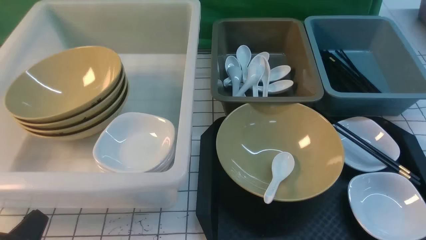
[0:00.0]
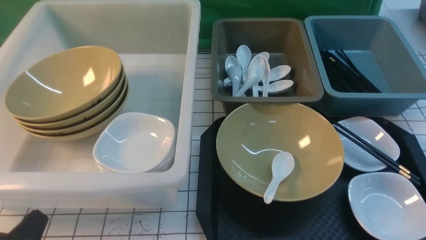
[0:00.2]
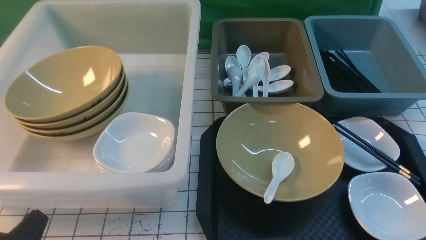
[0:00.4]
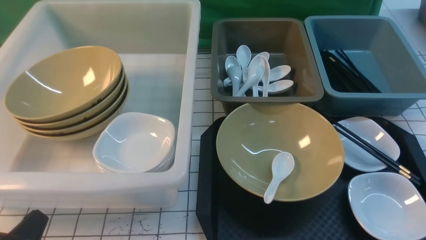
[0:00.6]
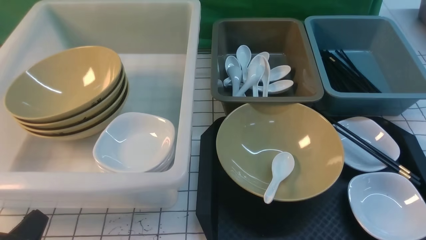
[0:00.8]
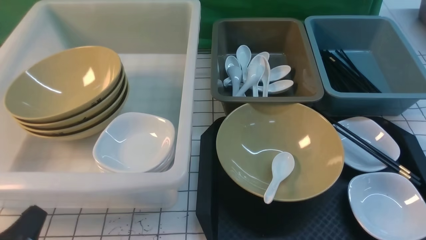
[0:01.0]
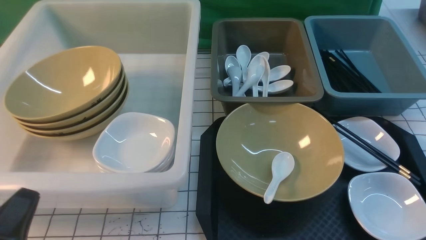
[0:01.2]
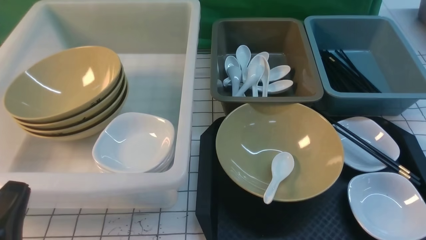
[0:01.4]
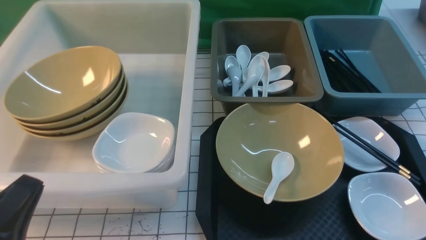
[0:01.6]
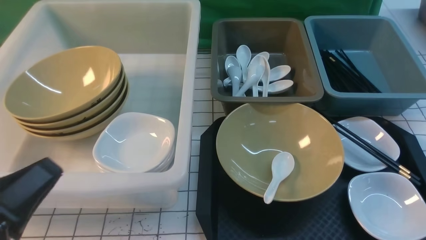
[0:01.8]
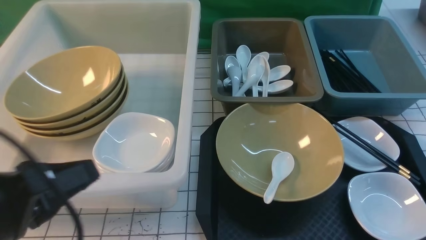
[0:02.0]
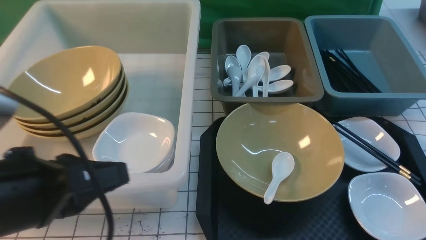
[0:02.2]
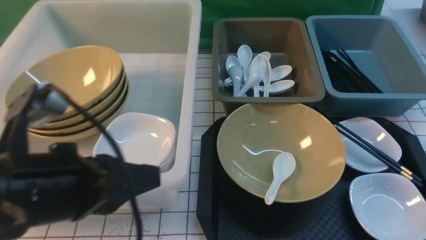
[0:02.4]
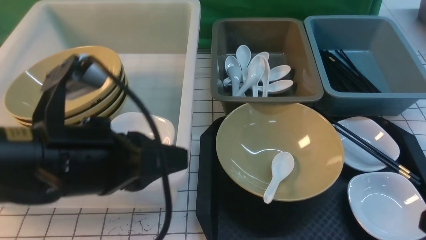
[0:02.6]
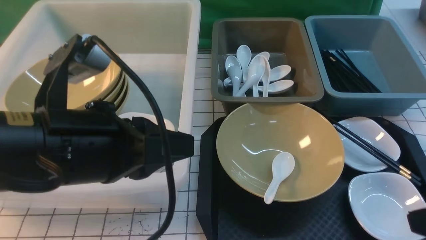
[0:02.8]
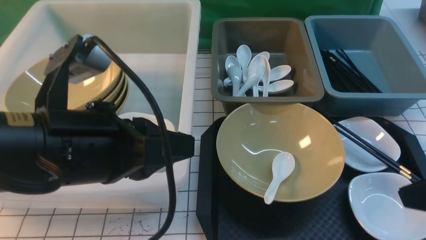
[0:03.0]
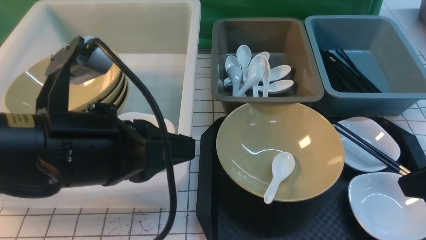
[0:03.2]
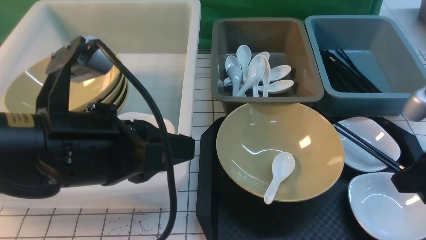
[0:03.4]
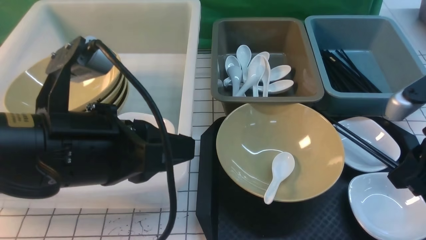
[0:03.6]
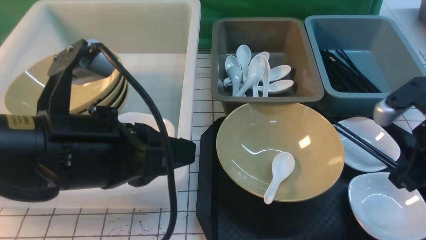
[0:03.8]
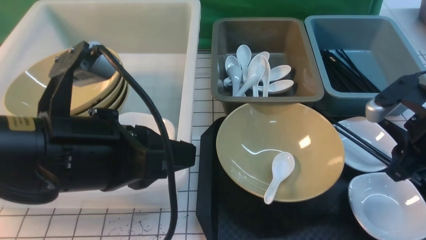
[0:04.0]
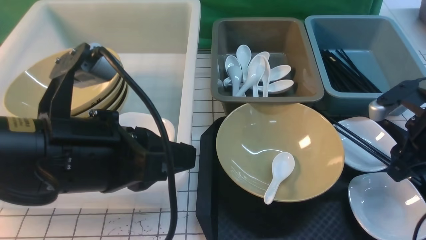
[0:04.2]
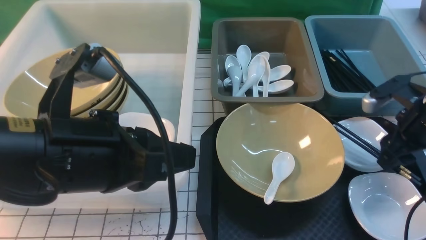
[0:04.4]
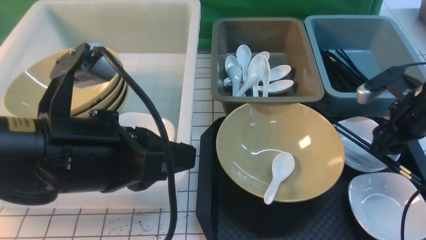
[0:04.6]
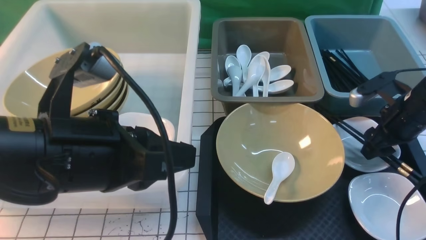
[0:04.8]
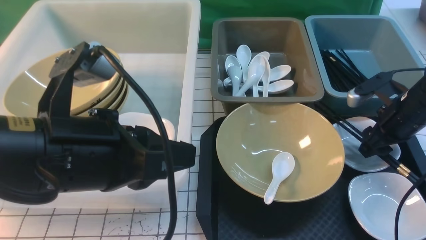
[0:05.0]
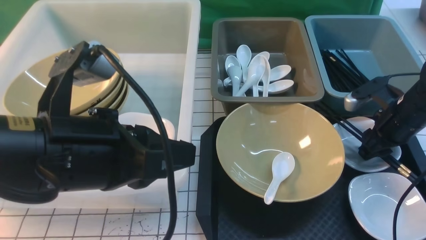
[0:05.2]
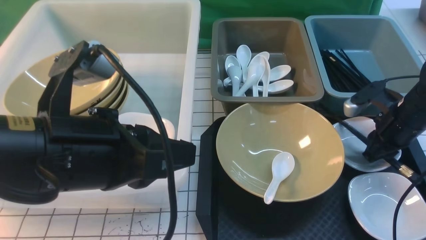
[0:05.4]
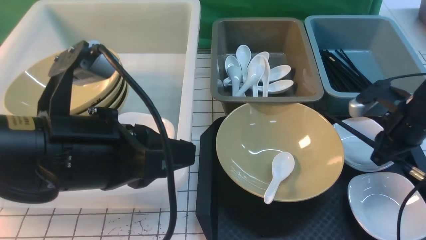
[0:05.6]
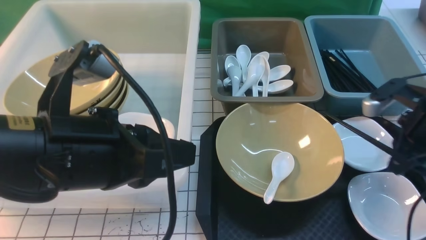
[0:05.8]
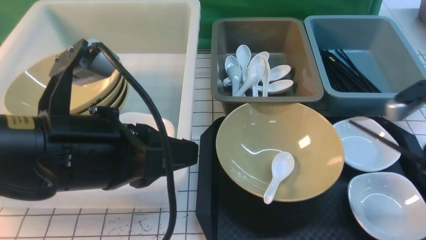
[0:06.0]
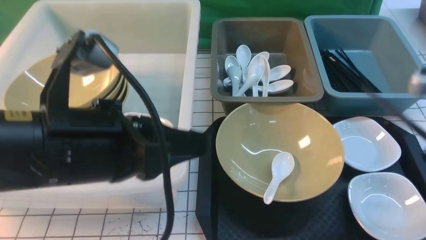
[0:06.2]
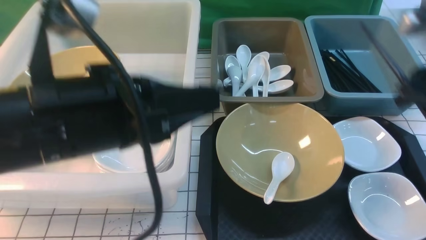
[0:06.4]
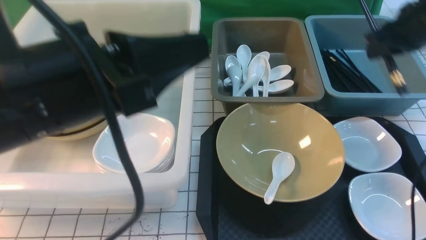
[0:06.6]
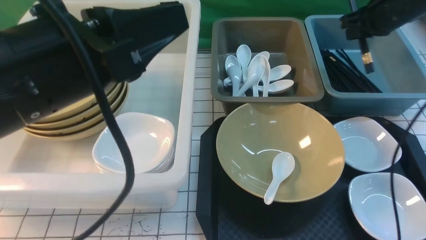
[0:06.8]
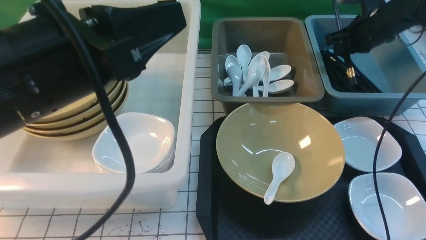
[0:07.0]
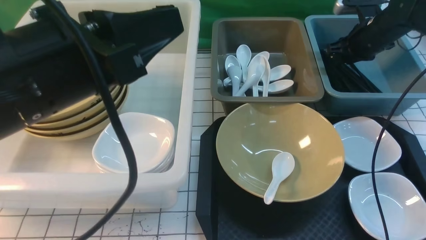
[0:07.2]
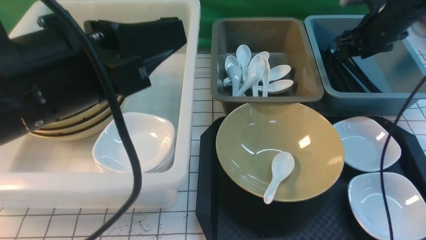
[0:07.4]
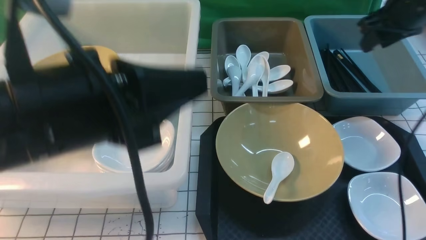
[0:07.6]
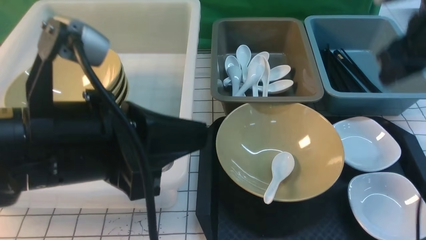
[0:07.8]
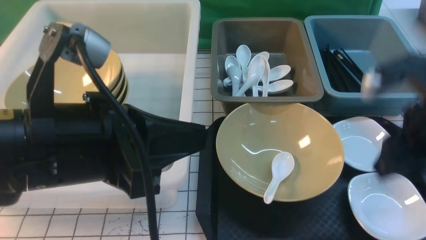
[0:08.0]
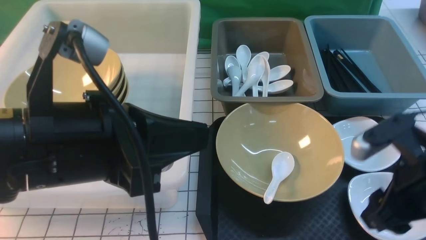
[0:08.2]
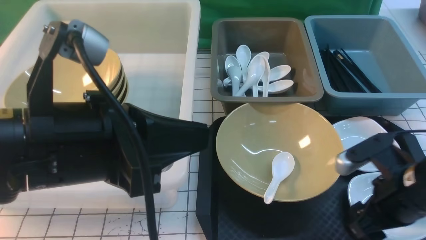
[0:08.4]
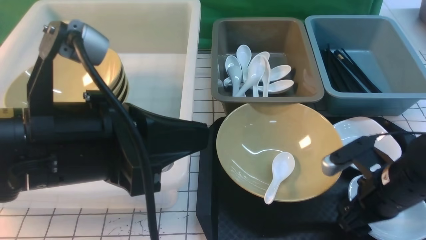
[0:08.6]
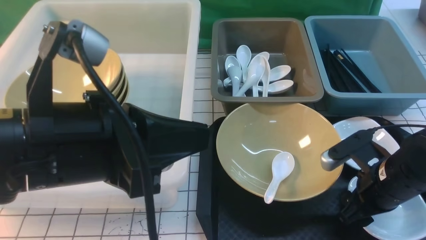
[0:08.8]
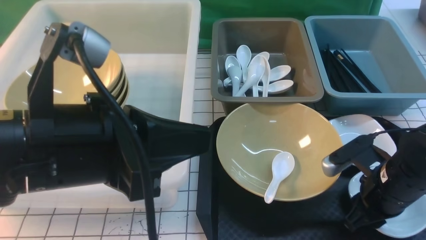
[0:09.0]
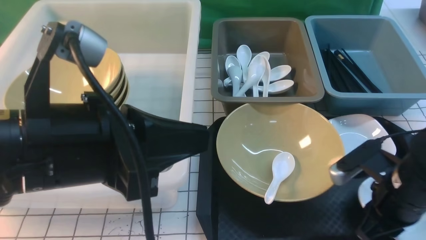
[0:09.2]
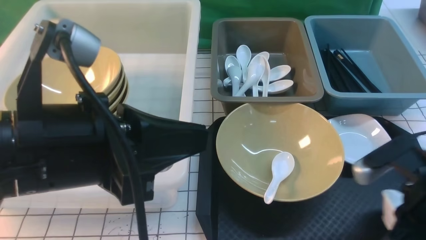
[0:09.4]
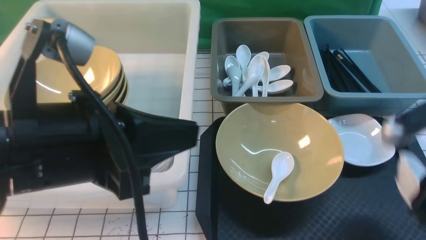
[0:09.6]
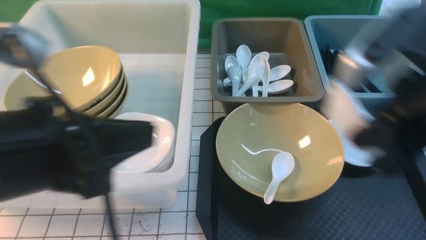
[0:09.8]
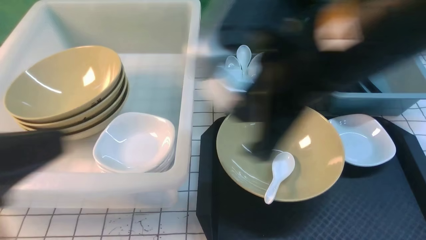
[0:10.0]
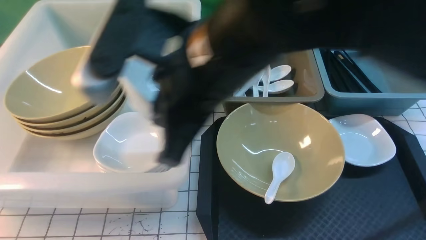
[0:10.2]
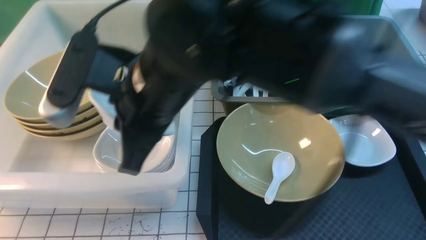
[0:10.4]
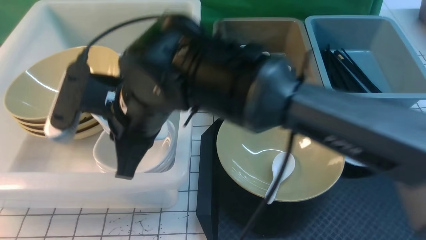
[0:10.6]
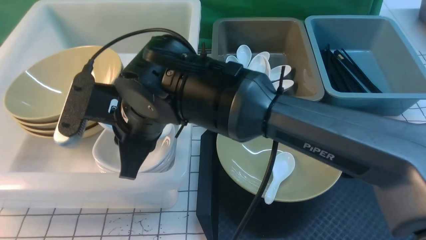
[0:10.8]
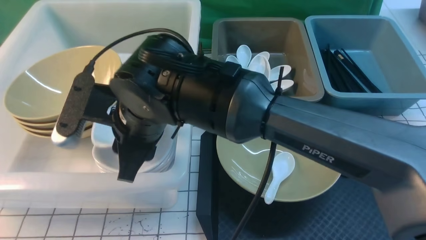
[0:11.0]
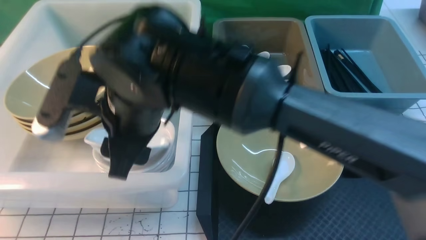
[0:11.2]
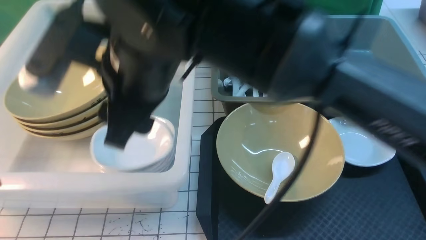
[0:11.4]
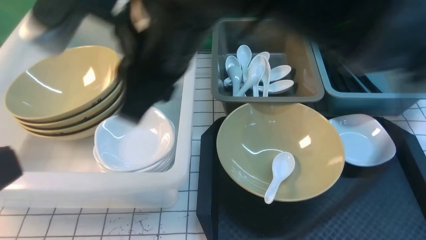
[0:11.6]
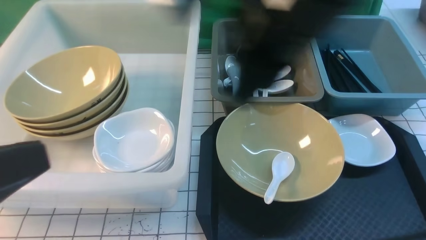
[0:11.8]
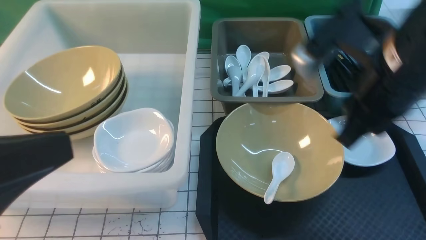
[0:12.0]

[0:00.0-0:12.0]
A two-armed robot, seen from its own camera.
Task of the whole recording: on white black table put chopsticks spoon bowls plates into blue grey white boxes.
Step, 0:00.0 to 0:05.8: use the right arm to grab the chopsticks.
Step, 0:06.0 to 0:07.4: use the right arm to put the chopsticks into the small storage box on the right.
Step, 0:07.6 to 0:09.4: use the right arm to grab the plate.
Step, 0:09.6 to 0:11.6: use the right arm to put the plate into the large storage box on the left.
0:00.0 to 0:01.6: The left gripper heads upward, covering approximately 5 cm.
0:01.6 to 0:03.0: The right gripper travels upward and forward by approximately 15 cm, and closes up; the left gripper moves to the right, upward and forward, some 15 cm.
0:03.0 to 0:04.4: The right gripper shifts about 20 cm forward and downward, and opens up.
0:04.4 to 0:06.0: The right gripper travels upward and backward by some 10 cm, and closes.
0:06.0 to 0:07.6: The right gripper moves forward and upward, some 15 cm, and opens its fingers.
0:07.6 to 0:09.0: The right gripper moves backward and downward, some 25 cm, and opens and closes again.
0:09.0 to 0:10.4: The right gripper moves to the left and upward, approximately 35 cm, and closes up. Meanwhile the left gripper is displaced to the left and backward by some 15 cm.
0:10.4 to 0:12.0: The left gripper changes place by about 5 cm, while the right gripper heads to the right, covering roughly 25 cm, and opens, then closes again.

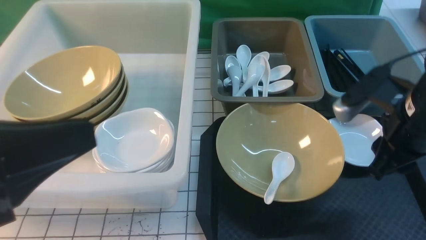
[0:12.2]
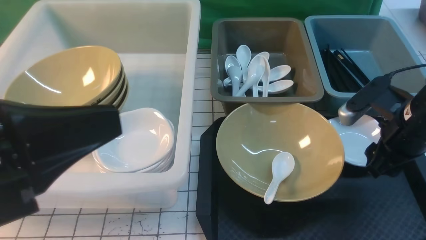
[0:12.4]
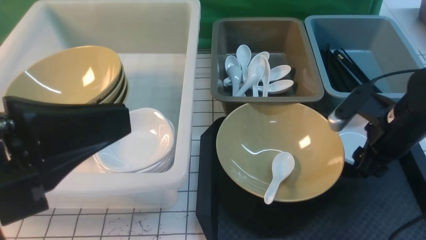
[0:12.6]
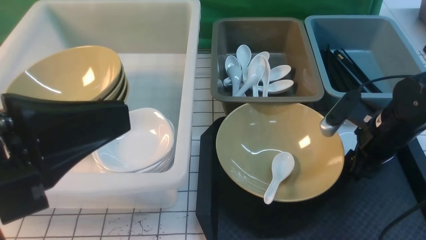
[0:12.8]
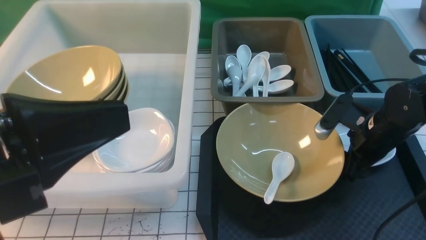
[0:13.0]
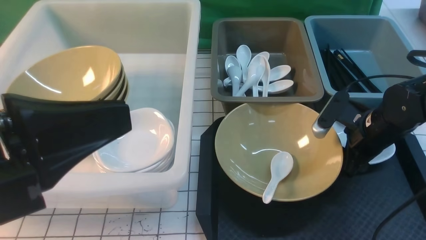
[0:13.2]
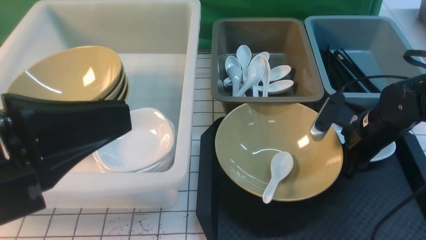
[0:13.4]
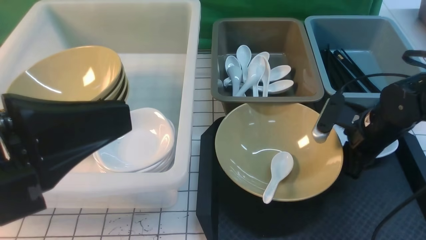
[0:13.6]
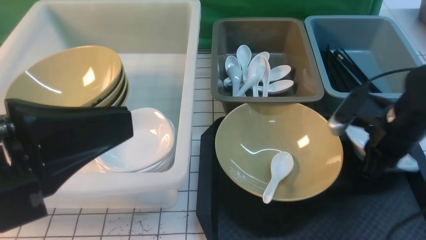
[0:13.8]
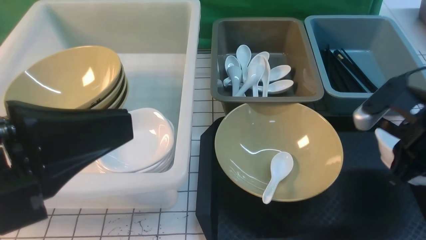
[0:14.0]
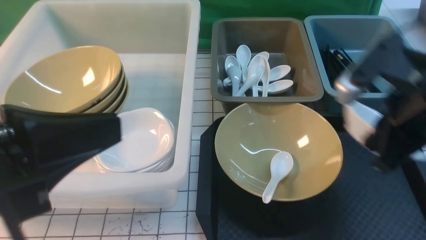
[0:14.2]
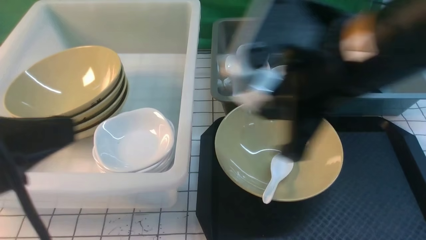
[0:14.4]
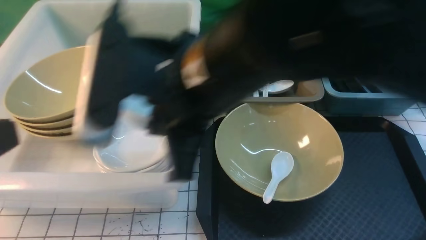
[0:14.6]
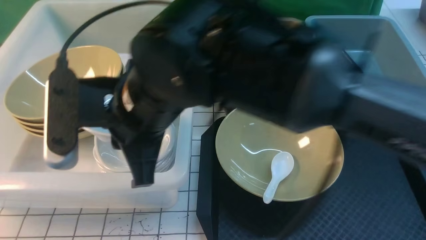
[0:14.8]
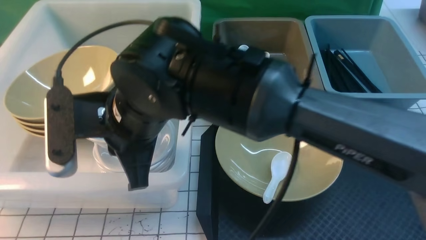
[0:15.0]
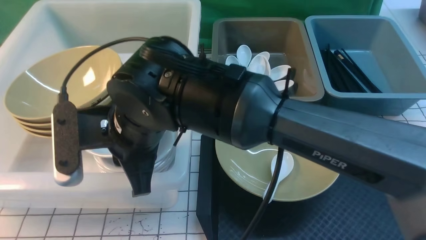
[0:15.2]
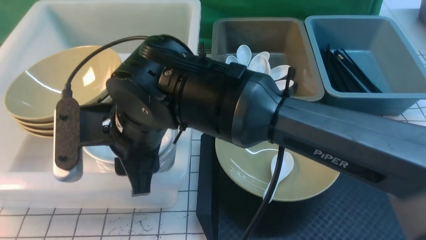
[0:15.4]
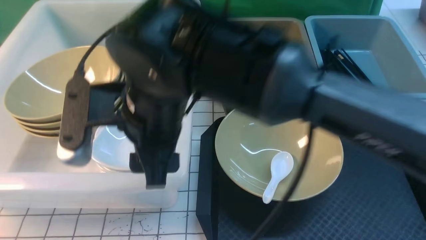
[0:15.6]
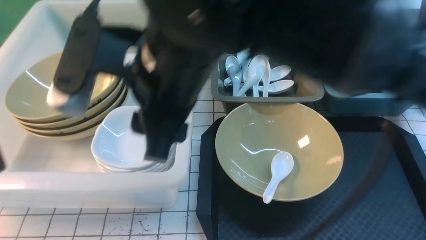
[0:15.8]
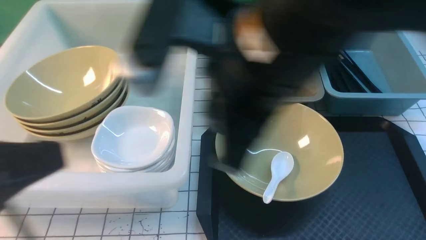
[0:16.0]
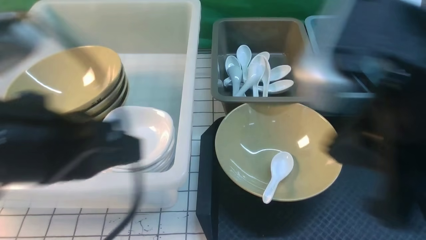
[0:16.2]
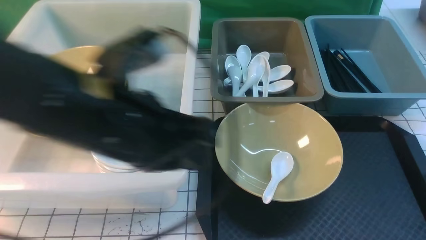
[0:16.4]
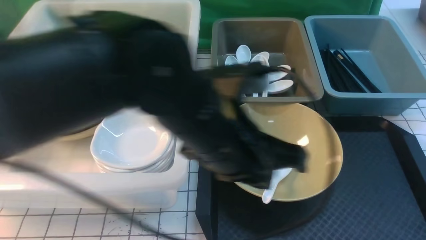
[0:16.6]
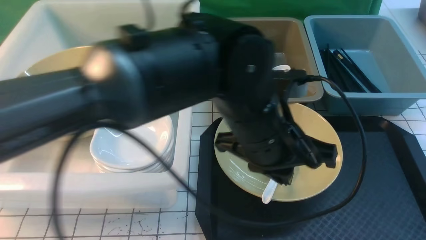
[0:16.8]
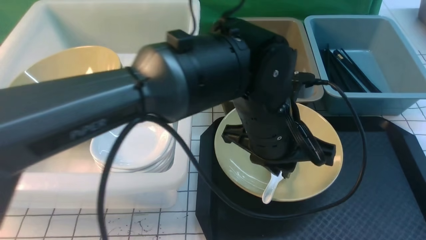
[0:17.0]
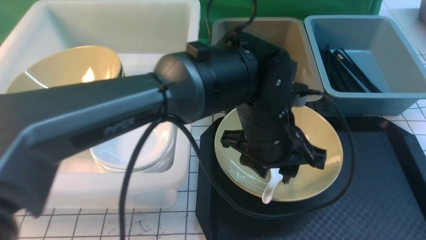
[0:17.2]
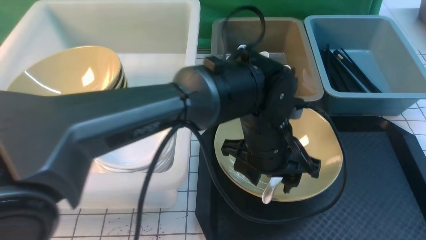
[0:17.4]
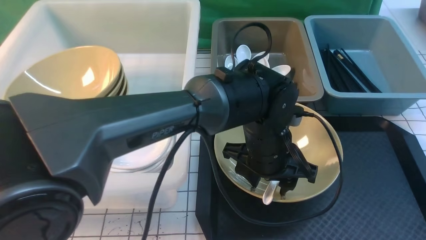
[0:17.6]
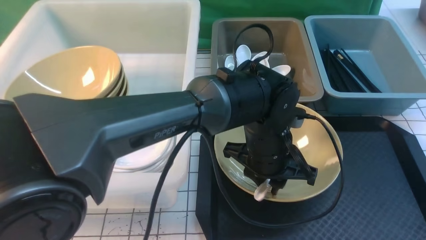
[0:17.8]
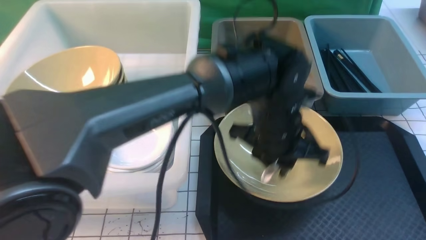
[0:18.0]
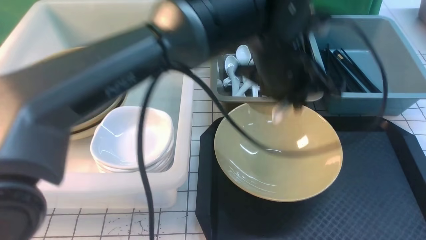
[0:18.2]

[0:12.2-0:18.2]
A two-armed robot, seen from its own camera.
Task of the whole recording: on white black table put chopsticks spoon bowls plates into blue grey white boxes.
Step, 0:12.2 to 0:14.0: use the right arm to grab the plate.
Step, 0:14.2 to 0:15.6: use the right arm to put the plate into the large storage box on the left.
Step, 0:15.8 to 0:17.8: use the left arm to grab the soup spoon in the middle.
0:12.2 to 0:13.8: The right gripper goes some 5 cm downward, and closes.
0:13.8 to 0:15.2: The right gripper shifts about 35 cm to the left. The left gripper moves to the left and backward, roughly 10 cm.
0:15.2 to 0:16.6: The left gripper moves to the right and forward, approximately 30 cm. The right gripper moves to the right and backward, roughly 40 cm, and opens, then closes once more.
0:16.6 to 0:18.2: The left gripper shifts approximately 15 cm forward and to the right, and opens and closes again.
